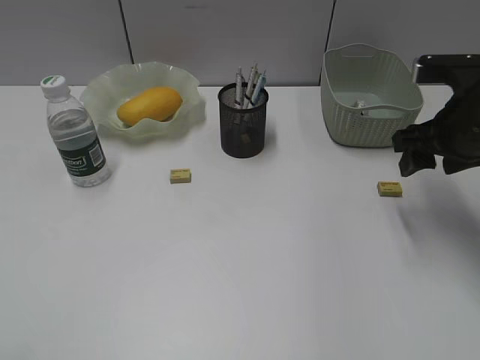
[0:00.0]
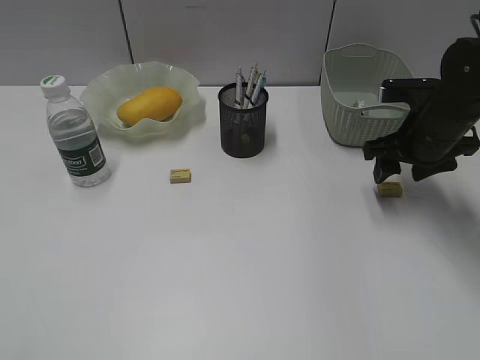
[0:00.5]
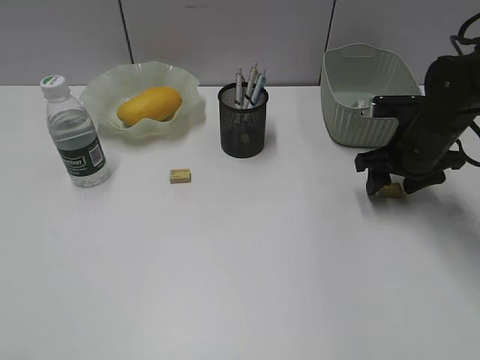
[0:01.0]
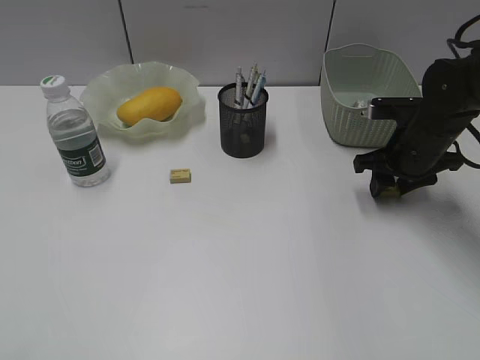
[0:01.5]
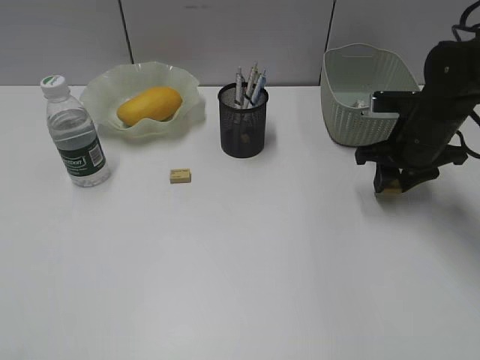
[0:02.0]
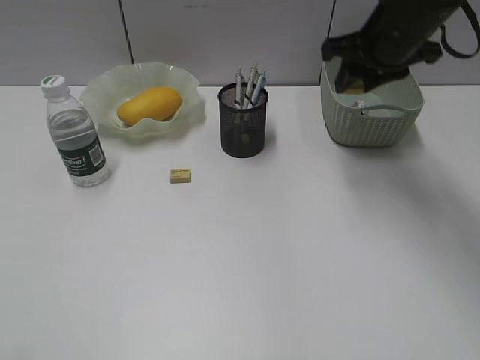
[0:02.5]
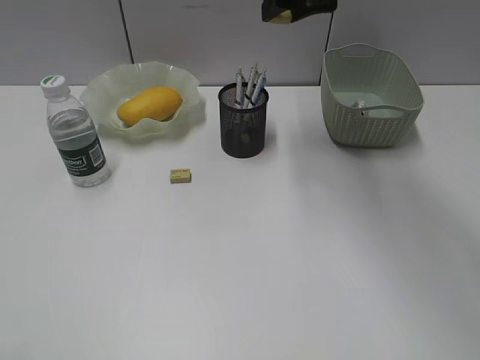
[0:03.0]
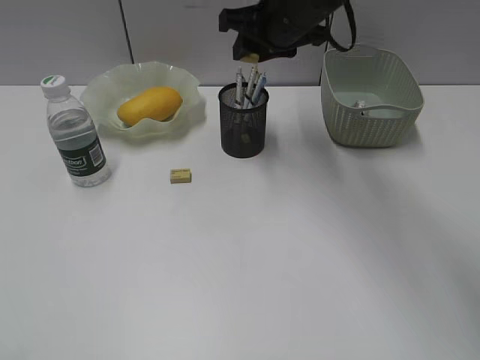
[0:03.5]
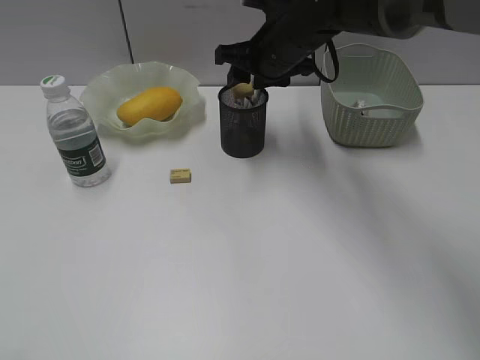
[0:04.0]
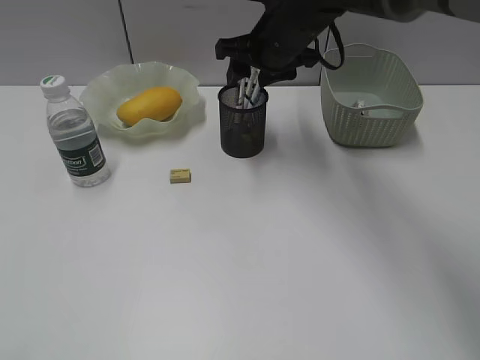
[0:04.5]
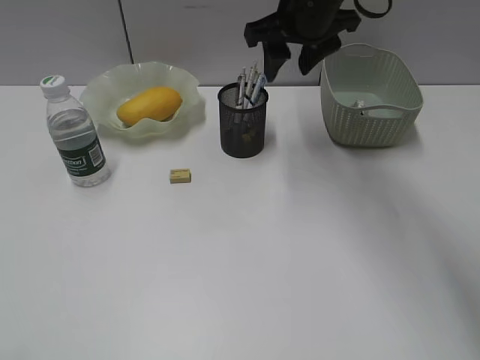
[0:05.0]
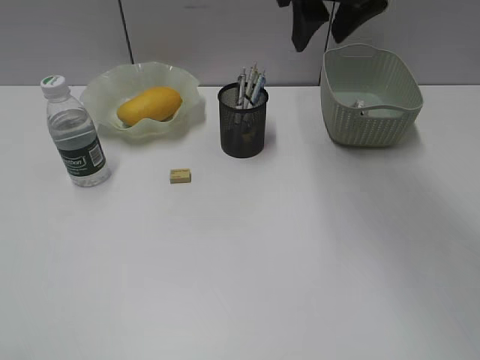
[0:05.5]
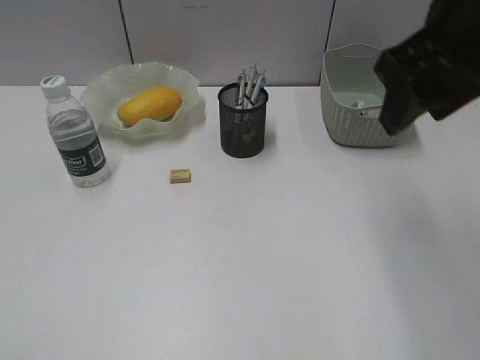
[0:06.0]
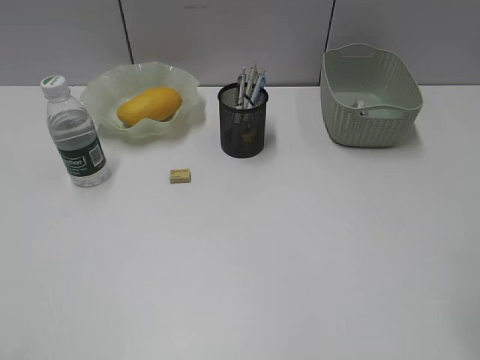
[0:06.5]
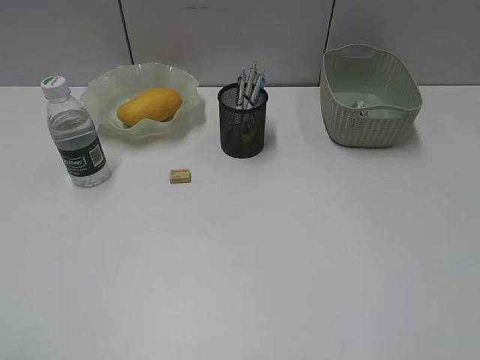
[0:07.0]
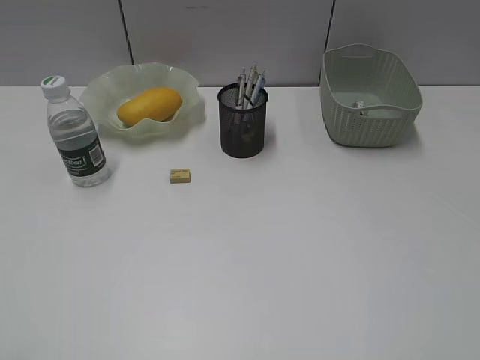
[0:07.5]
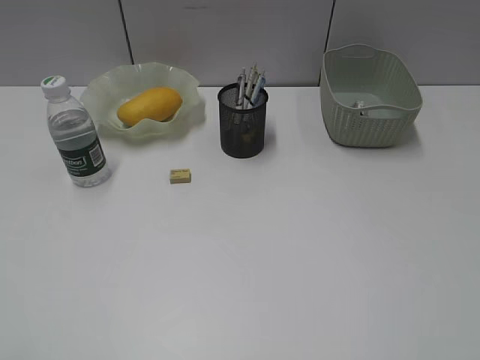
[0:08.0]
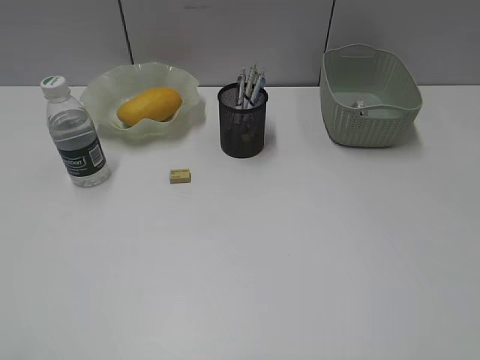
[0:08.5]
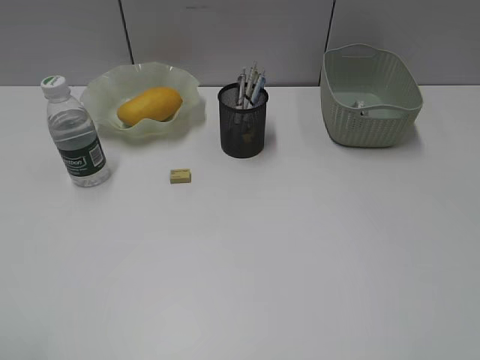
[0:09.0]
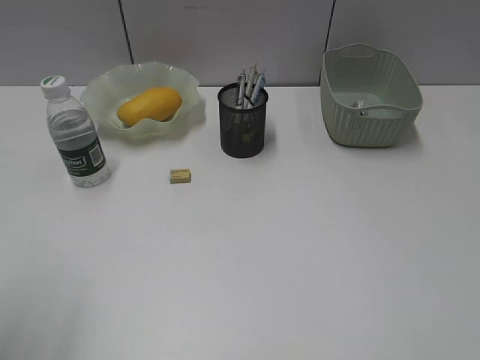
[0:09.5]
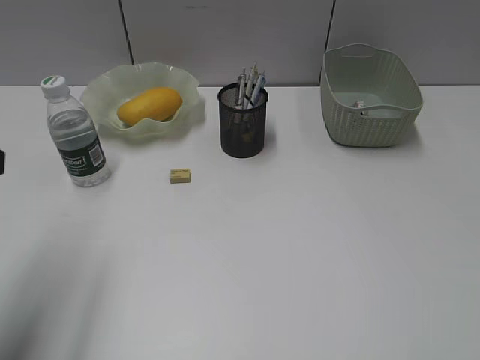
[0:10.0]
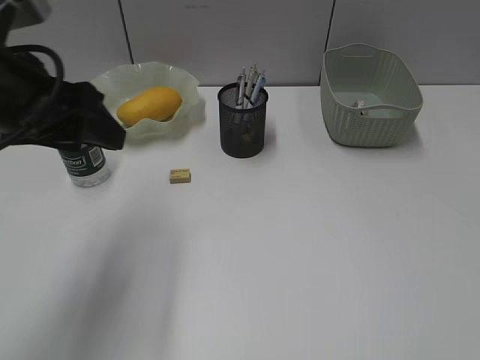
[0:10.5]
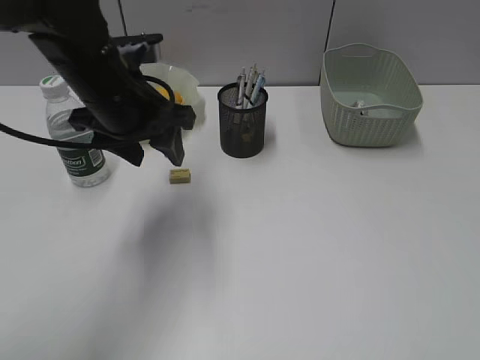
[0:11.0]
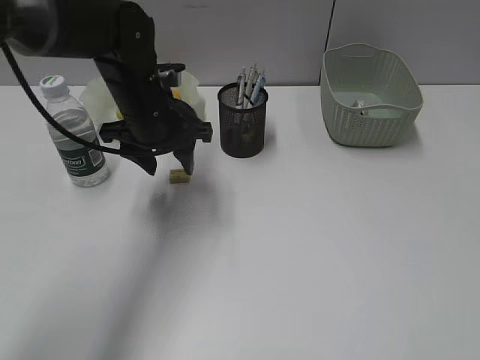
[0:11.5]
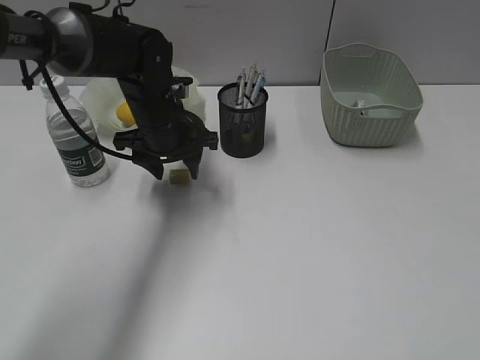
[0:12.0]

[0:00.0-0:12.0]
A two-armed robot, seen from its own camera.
Step, 0:02.0 to 0:04.0: Place the eraser in pen holder with right gripper.
0:00.0 to 0:02.0: The right gripper shifts approximately 10 cm downward and forward, and closes.
0:02.0 to 0:04.0: The right gripper goes about 20 cm to the left and upward.
0:04.0 to 0:06.0: The right gripper goes some 25 cm backward, upward and to the right.
0:06.0 to 0:08.0: The right gripper heads backward and to the right, covering approximately 25 cm.
0:08.0 to 0:10.0: The left gripper is displaced forward by some 20 cm.
0:10.0 to 0:12.0: The left gripper shifts about 30 cm forward, to the right and downward.

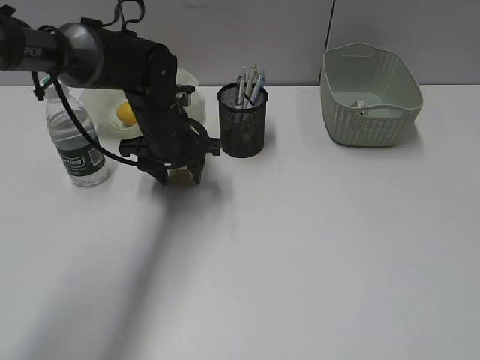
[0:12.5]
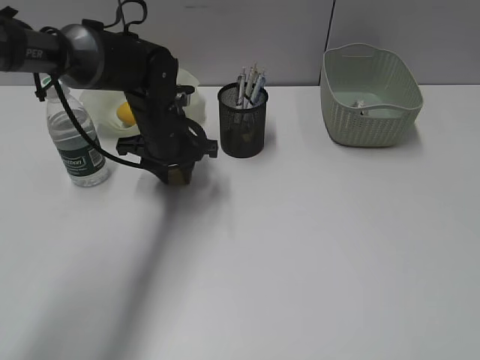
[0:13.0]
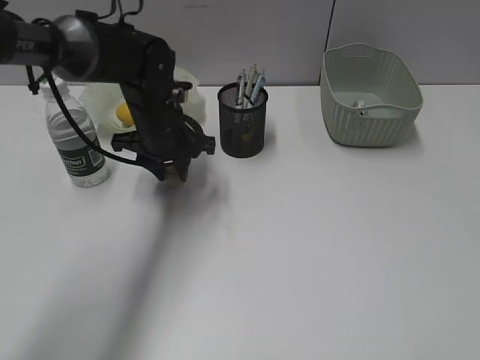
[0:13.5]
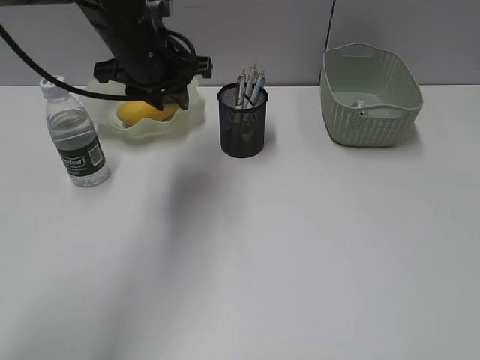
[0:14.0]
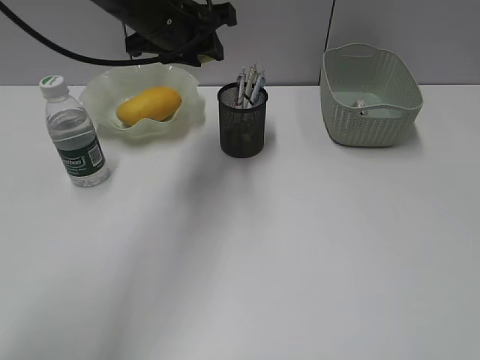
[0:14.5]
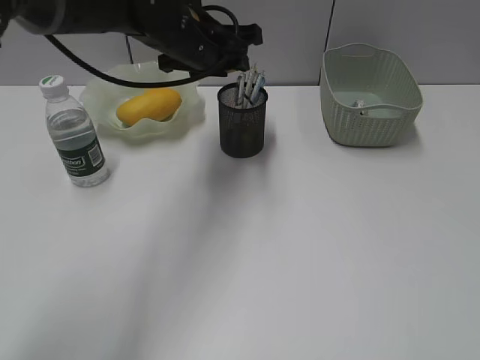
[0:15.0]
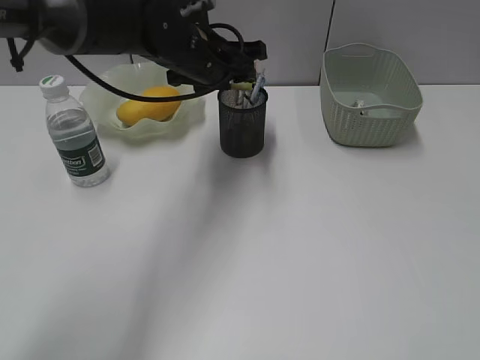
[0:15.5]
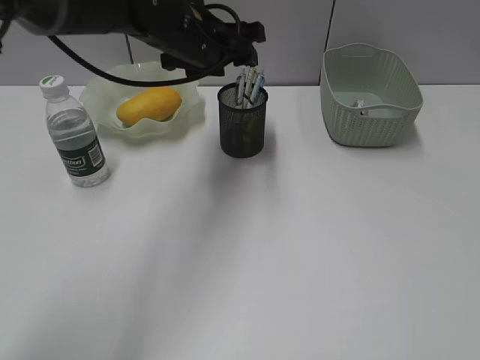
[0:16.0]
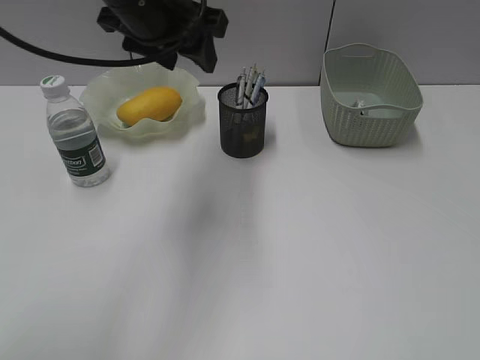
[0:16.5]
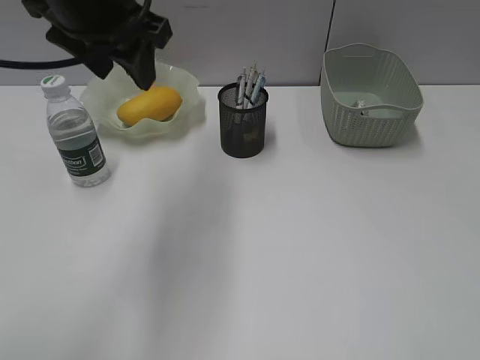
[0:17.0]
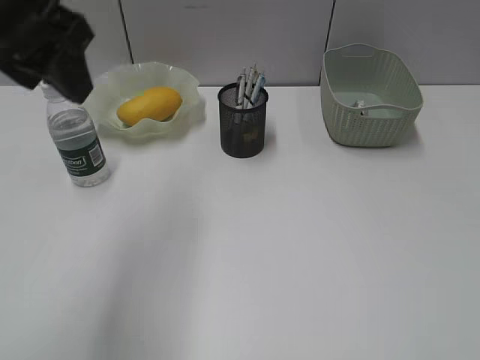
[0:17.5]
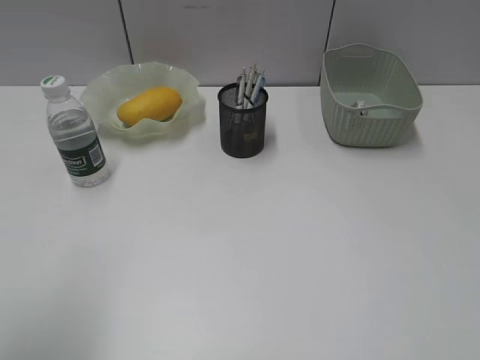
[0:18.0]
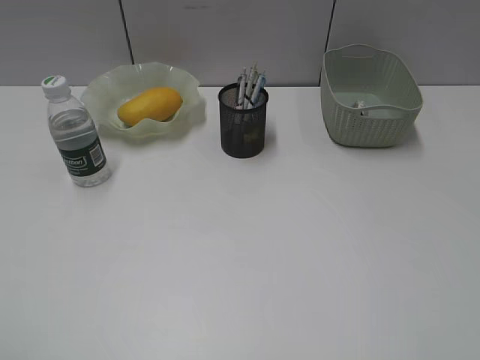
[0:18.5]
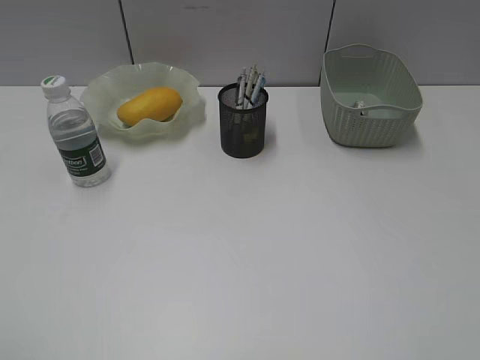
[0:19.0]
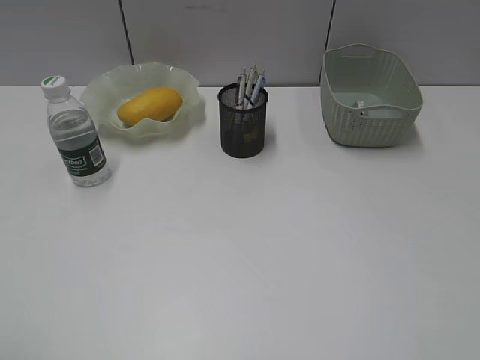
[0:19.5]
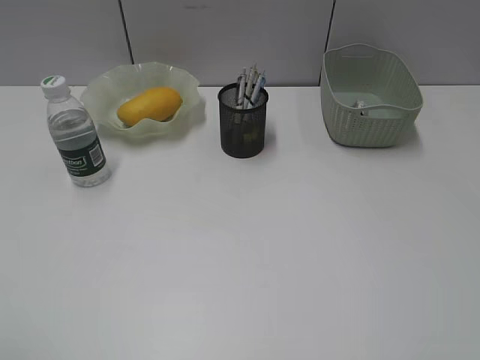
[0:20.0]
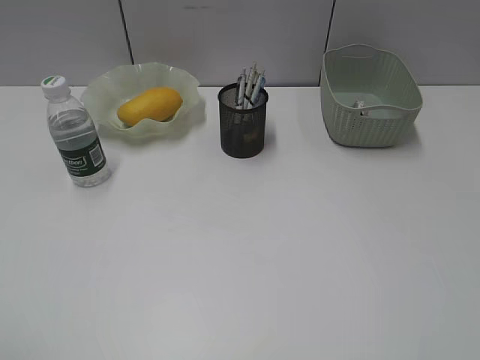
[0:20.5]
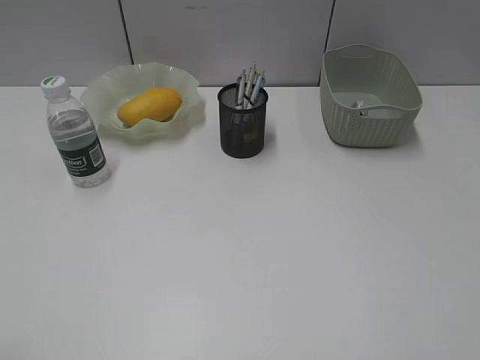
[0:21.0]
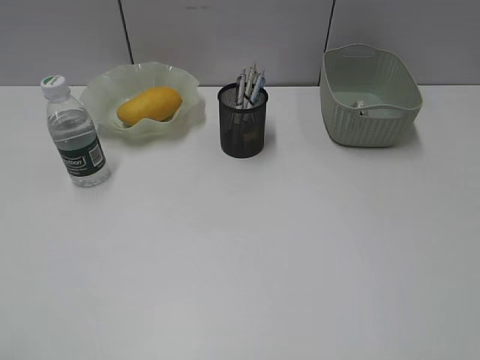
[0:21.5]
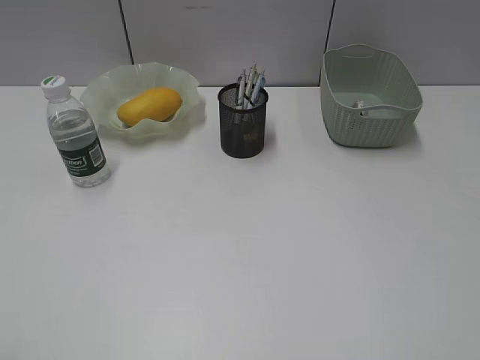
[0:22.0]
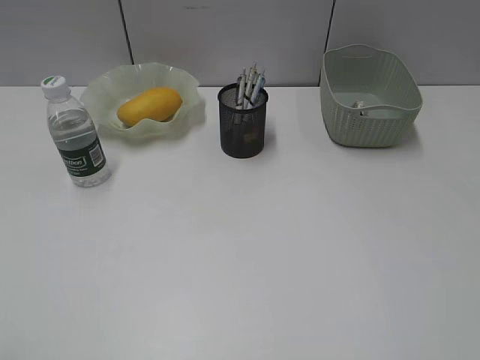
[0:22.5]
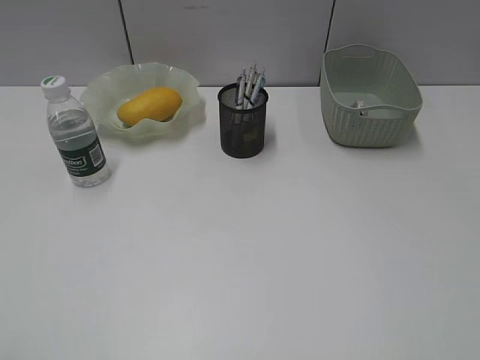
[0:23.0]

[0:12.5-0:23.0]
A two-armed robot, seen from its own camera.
Step, 0:13.5 to 0:15.5: Place the eraser in pen holder with left gripper.
0:12.5 to 0:14.5: The left gripper travels upward by about 15 cm.
0:14.5 to 0:16.5: The left gripper travels backward by roughly 5 cm.
0:16.5 to 0:19.0: The left gripper shifts some 40 cm backward and to the left.

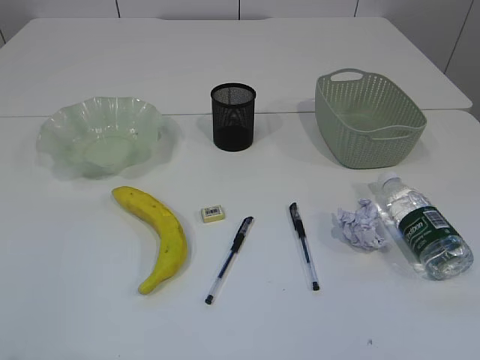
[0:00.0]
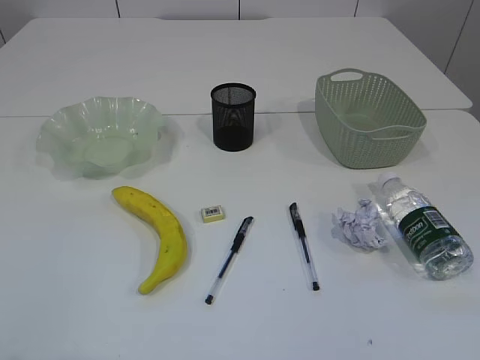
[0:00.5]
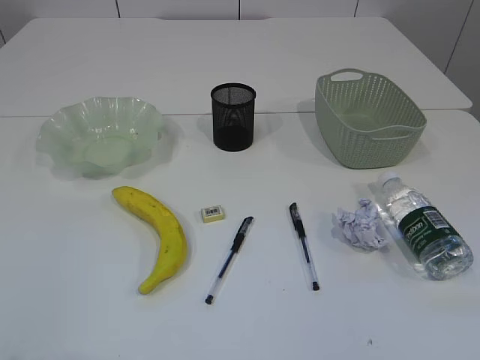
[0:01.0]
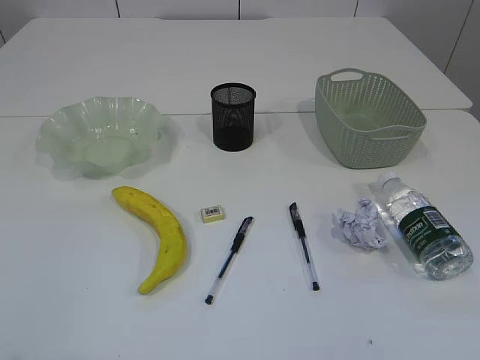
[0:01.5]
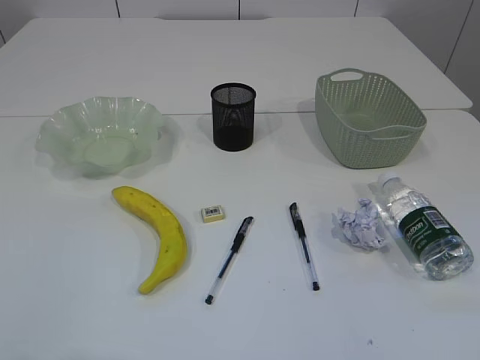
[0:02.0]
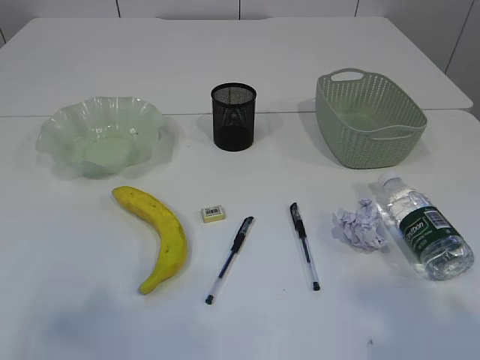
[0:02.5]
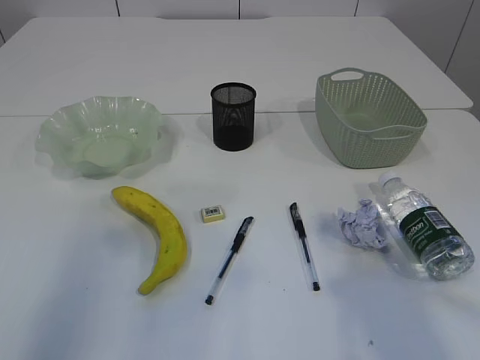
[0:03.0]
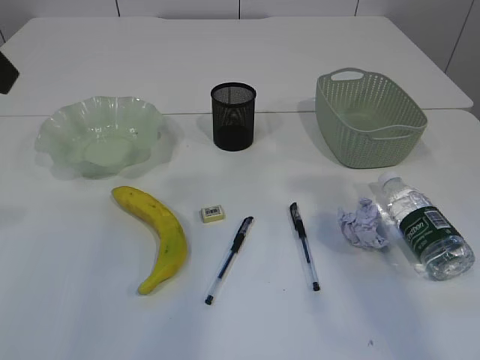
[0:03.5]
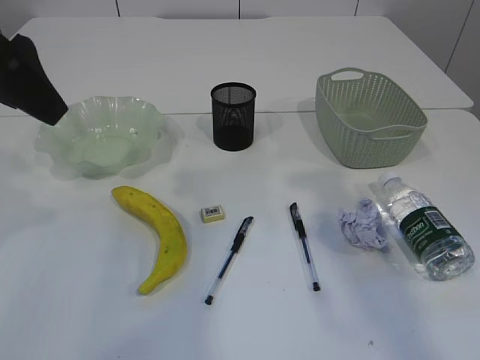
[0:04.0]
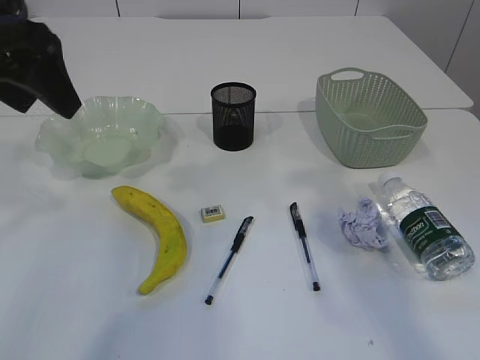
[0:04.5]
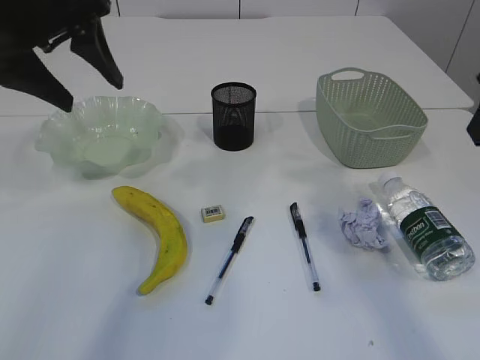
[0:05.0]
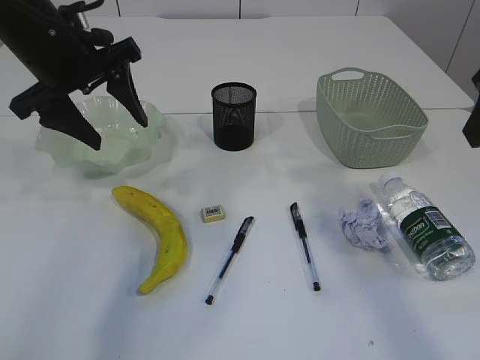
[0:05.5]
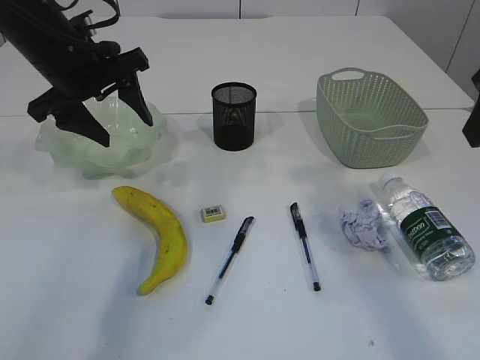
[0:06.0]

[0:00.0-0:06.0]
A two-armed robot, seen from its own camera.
0:02.0 to 0:04.0: The left gripper shifts roughly 30 cm forward. The right gripper is displaced forward and upward by approximately 25 cm.
0:04.0 to 0:06.0: The left gripper moves forward and downward, some 15 cm.
